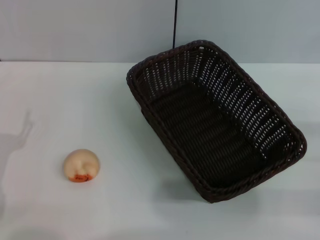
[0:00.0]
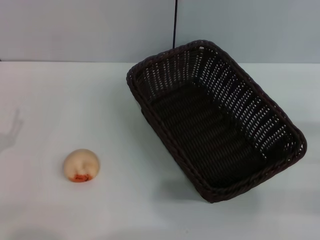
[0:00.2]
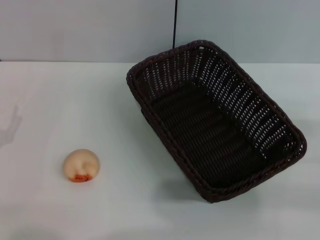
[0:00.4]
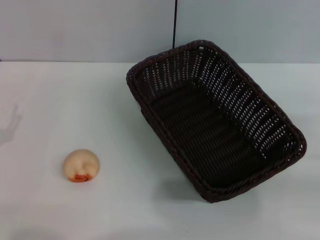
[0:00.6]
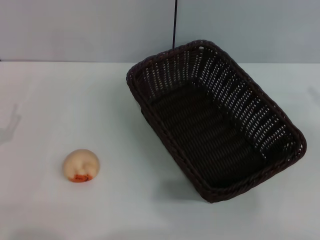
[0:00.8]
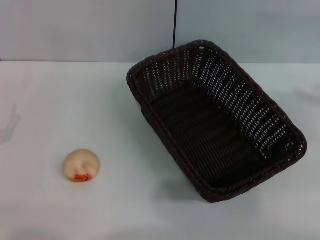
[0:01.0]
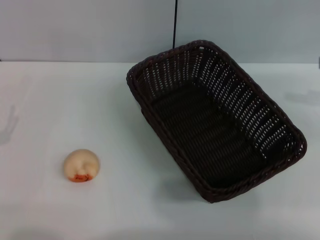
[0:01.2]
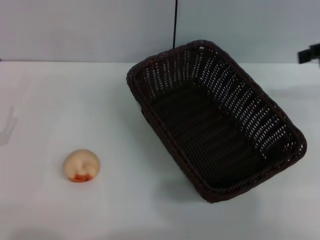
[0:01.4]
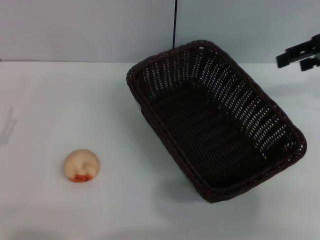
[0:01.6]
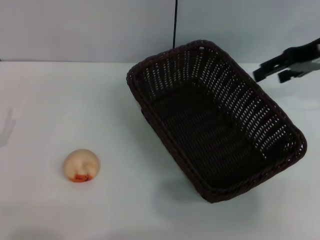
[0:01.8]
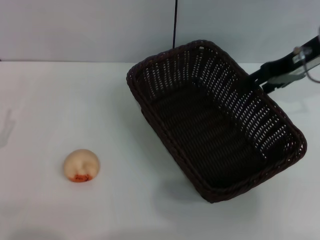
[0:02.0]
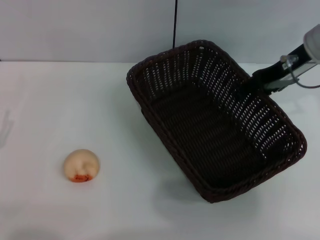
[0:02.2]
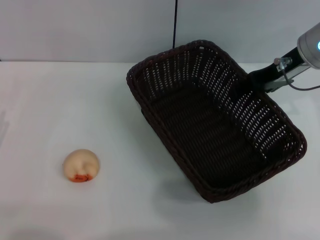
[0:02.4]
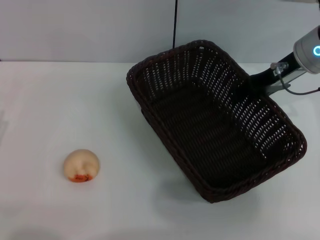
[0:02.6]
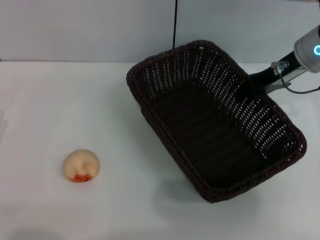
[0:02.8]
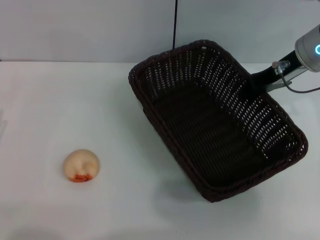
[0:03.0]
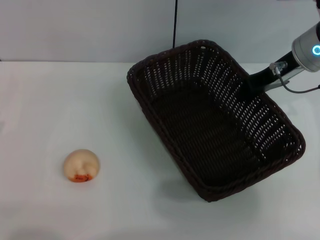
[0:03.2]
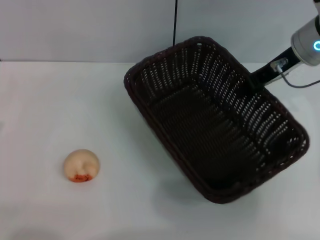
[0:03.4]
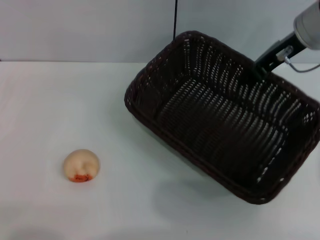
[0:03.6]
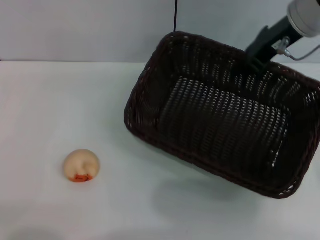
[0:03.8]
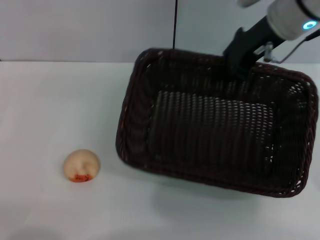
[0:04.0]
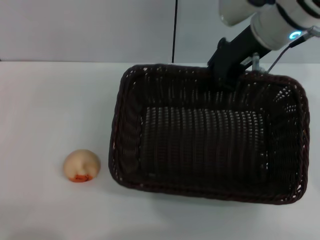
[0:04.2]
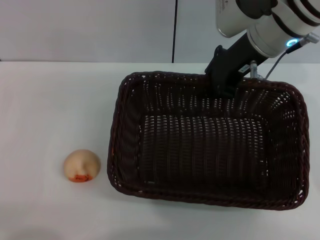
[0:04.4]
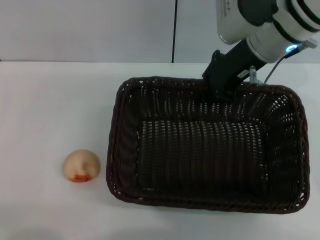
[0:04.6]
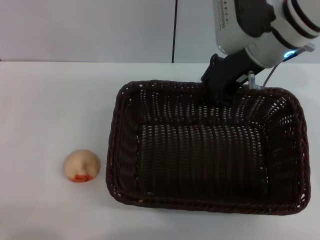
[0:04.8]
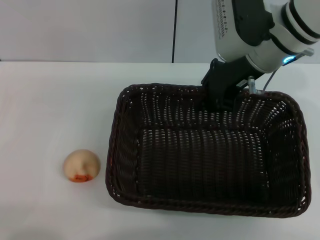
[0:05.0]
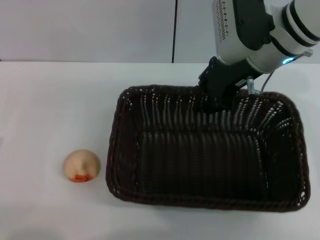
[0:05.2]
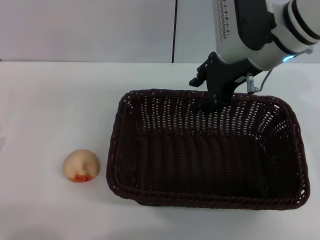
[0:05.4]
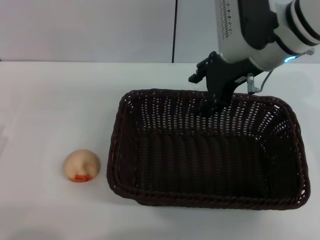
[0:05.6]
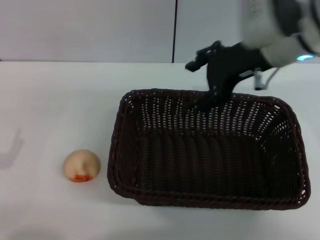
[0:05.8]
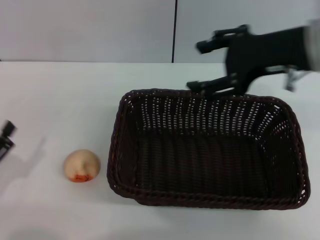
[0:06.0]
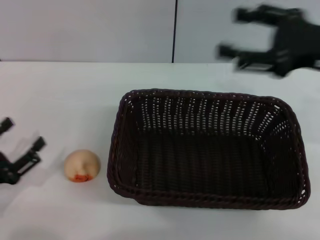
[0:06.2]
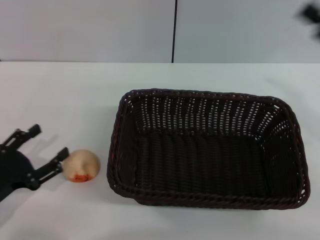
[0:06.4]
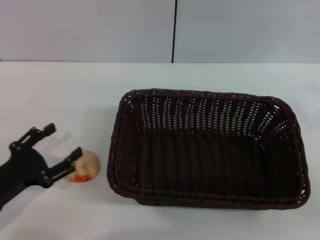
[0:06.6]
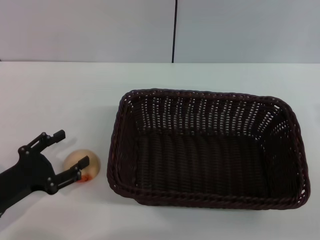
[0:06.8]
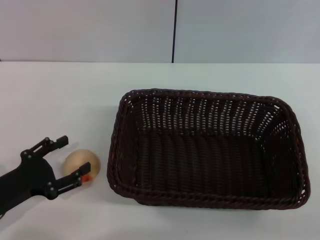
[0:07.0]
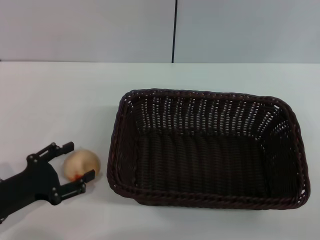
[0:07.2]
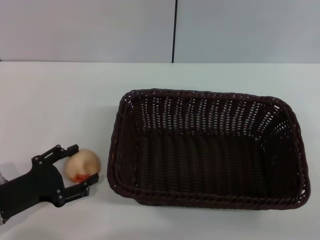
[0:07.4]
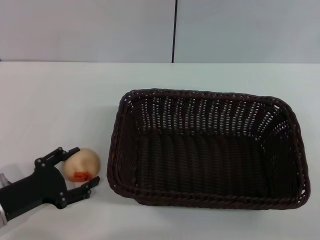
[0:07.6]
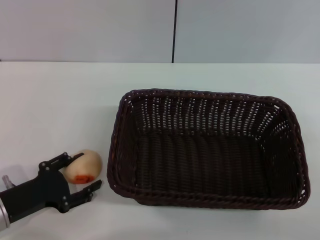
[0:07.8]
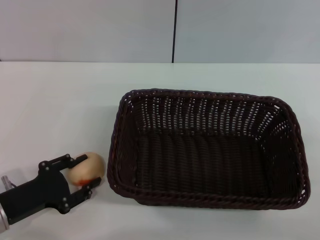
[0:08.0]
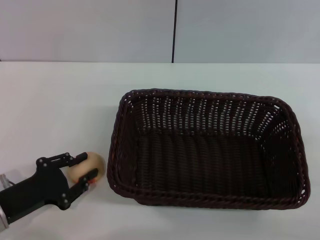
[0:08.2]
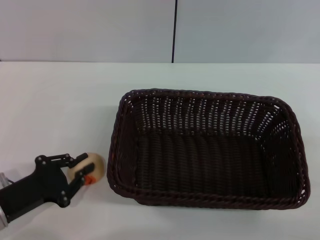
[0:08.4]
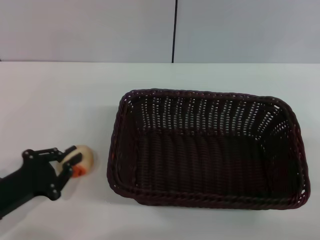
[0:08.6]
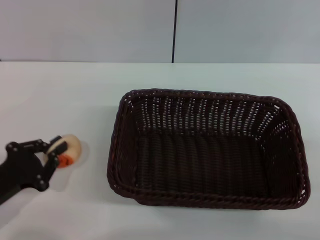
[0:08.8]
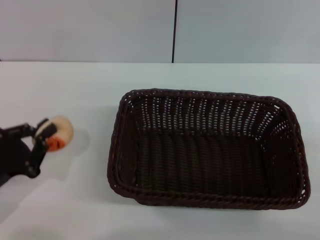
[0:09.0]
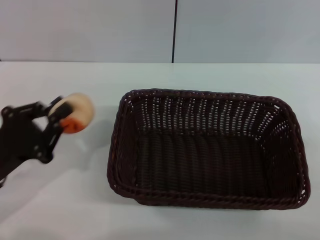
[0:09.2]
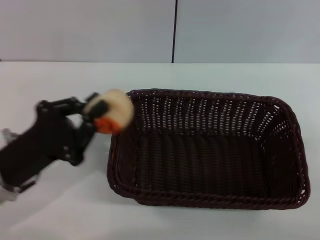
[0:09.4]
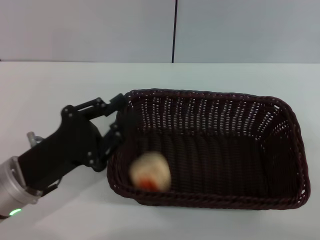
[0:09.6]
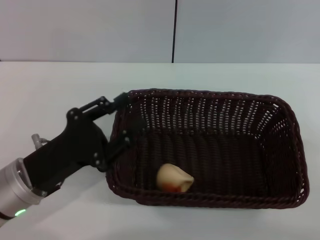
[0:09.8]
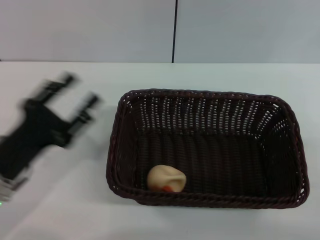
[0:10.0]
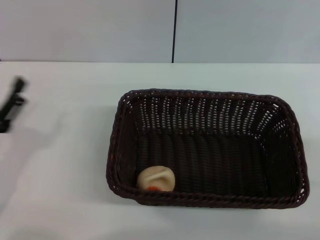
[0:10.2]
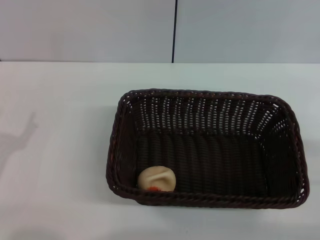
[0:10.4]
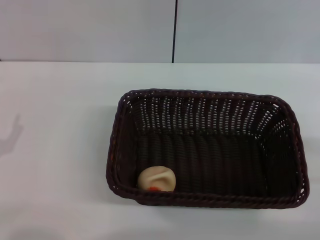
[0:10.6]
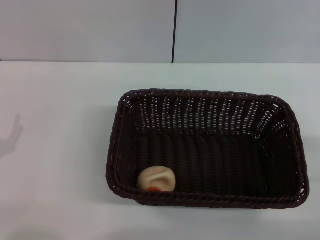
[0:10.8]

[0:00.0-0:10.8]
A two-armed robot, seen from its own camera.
Step, 0:00.0 to 0:05.6: Move the basket to the center of view with the right gripper.
Step, 0:05.8 to 0:09.0: Pick up the egg yolk pastry with the left gripper.
Step, 0:09.2 to 0:09.8: Place the egg yolk pastry into the basket with the left gripper.
0:00.0 to 0:01.6: The right gripper heads forward, upward and to the left, covering approximately 25 cm.
0:01.6 to 0:03.0: The right gripper shifts approximately 10 cm to the left and downward, and closes.
0:03.0 to 0:04.6: The right gripper heads to the left, covering about 10 cm.
0:04.6 to 0:06.2: The right gripper heads to the right and backward, covering approximately 15 cm, and opens.
0:06.2 to 0:07.8: The left gripper changes place by roughly 5 cm; the right gripper heads downward, backward and to the right, covering about 20 cm.
0:07.8 to 0:09.2: The left gripper travels upward by some 5 cm, and closes its fingers.
0:09.2 to 0:10.8: The left gripper changes place by roughly 5 cm, and opens.

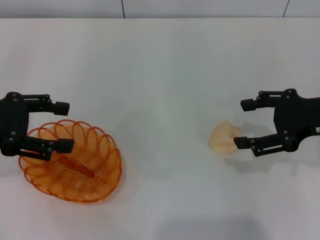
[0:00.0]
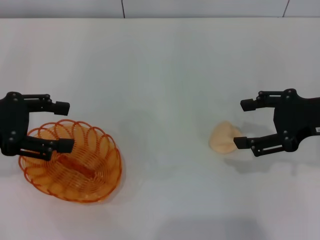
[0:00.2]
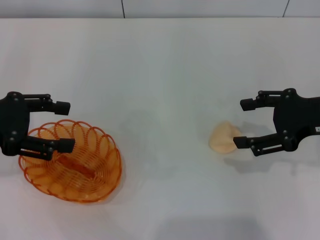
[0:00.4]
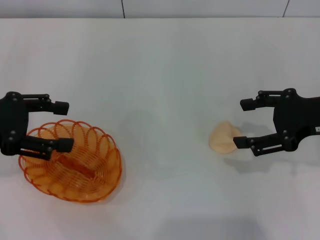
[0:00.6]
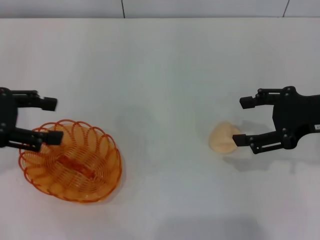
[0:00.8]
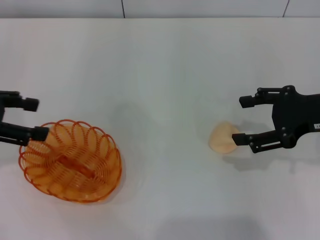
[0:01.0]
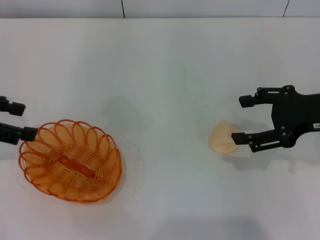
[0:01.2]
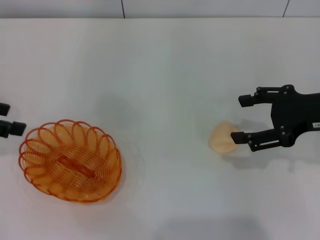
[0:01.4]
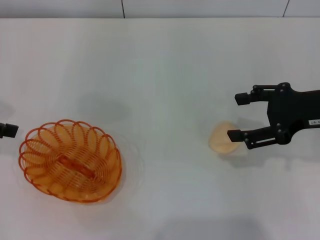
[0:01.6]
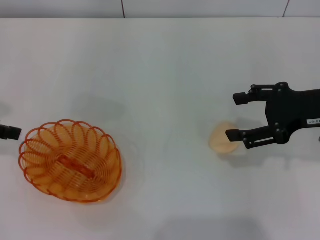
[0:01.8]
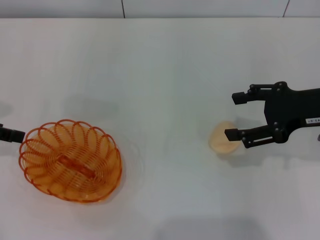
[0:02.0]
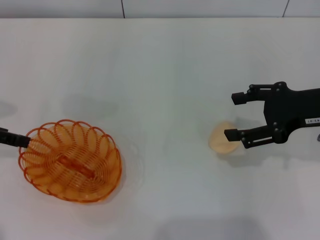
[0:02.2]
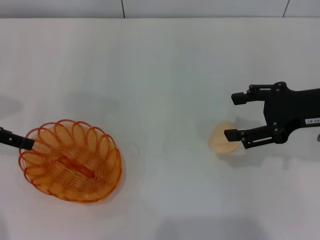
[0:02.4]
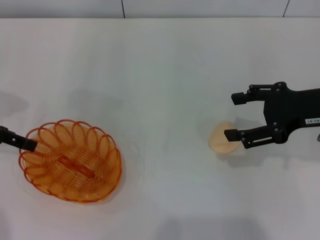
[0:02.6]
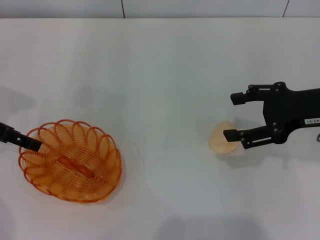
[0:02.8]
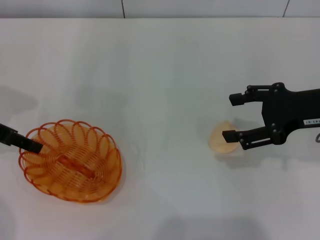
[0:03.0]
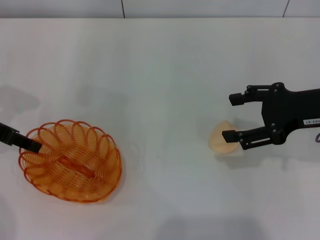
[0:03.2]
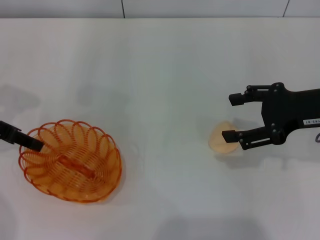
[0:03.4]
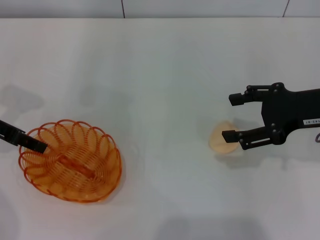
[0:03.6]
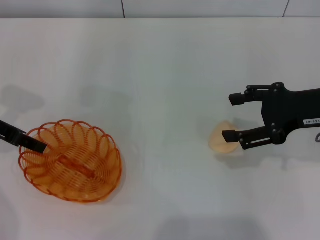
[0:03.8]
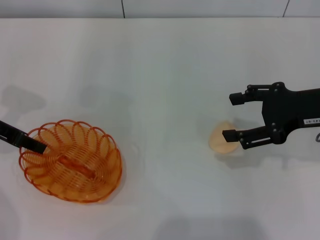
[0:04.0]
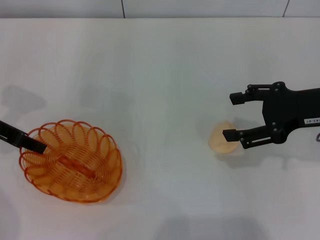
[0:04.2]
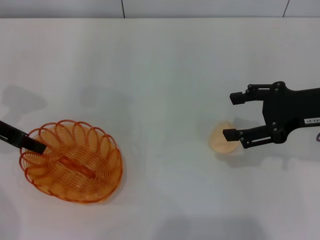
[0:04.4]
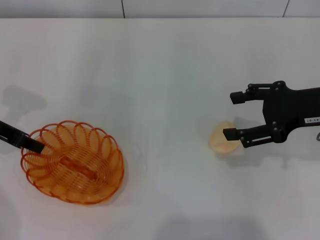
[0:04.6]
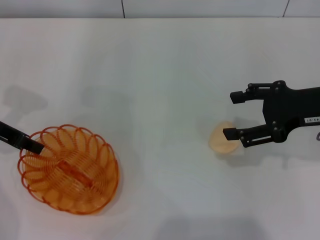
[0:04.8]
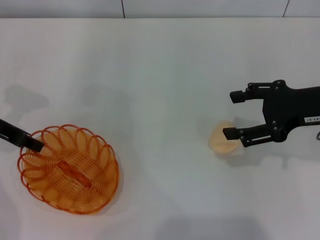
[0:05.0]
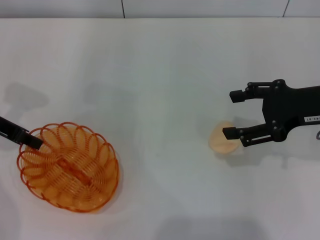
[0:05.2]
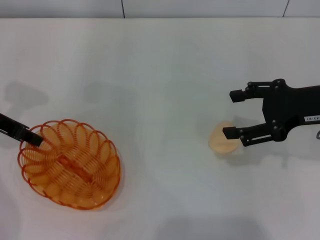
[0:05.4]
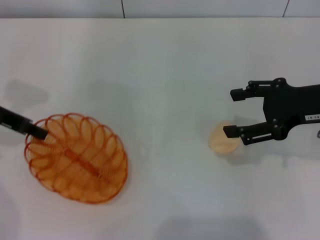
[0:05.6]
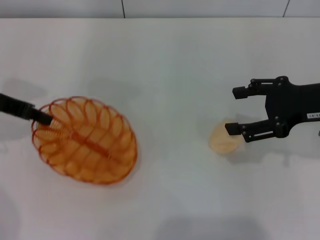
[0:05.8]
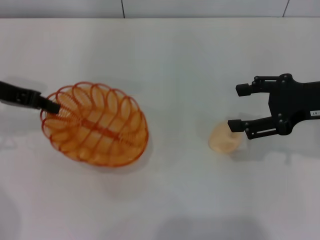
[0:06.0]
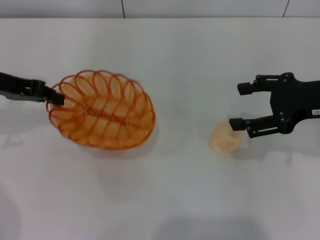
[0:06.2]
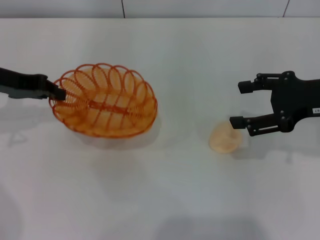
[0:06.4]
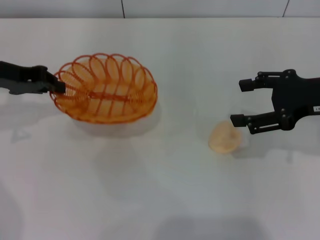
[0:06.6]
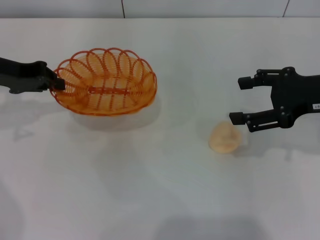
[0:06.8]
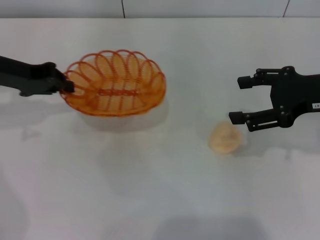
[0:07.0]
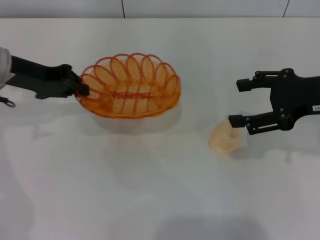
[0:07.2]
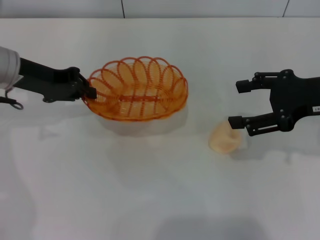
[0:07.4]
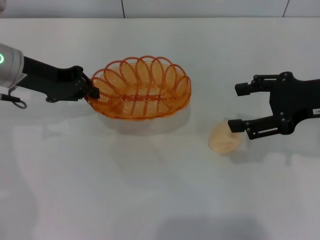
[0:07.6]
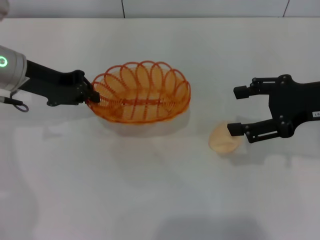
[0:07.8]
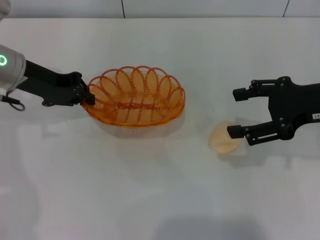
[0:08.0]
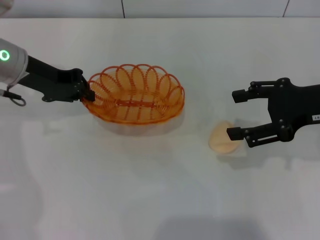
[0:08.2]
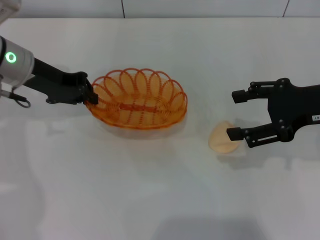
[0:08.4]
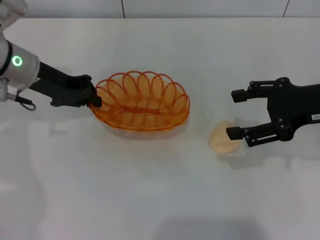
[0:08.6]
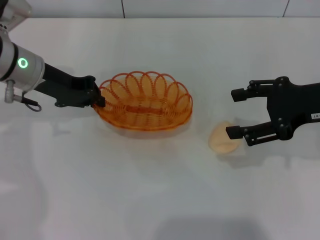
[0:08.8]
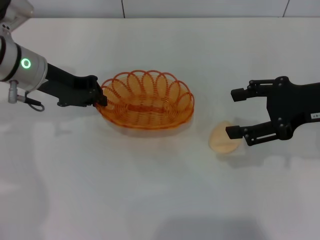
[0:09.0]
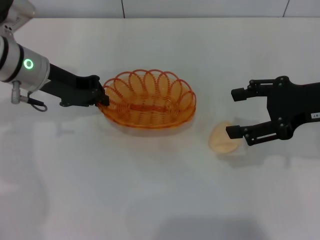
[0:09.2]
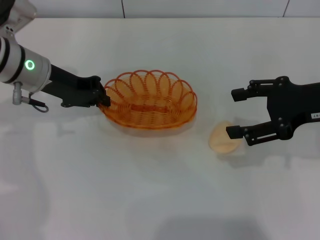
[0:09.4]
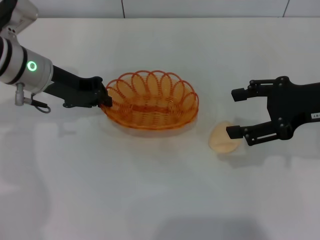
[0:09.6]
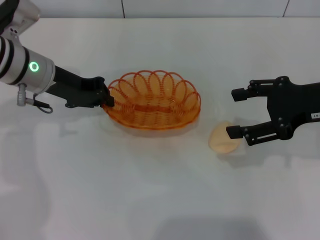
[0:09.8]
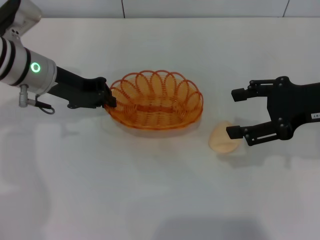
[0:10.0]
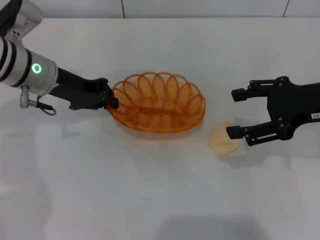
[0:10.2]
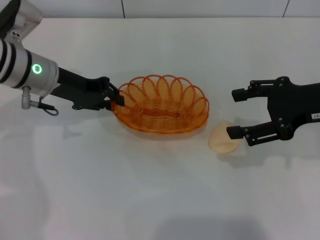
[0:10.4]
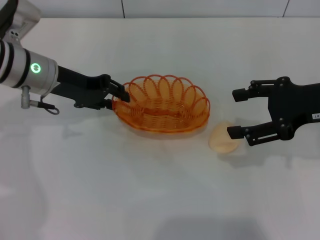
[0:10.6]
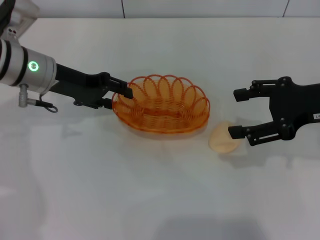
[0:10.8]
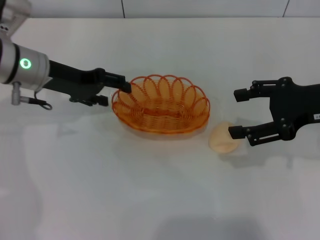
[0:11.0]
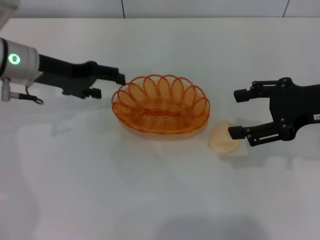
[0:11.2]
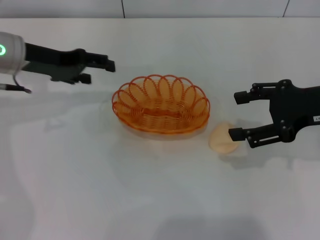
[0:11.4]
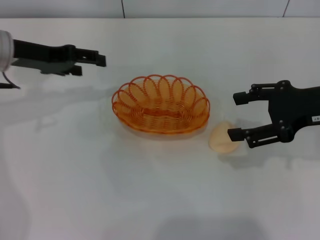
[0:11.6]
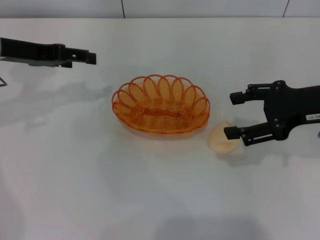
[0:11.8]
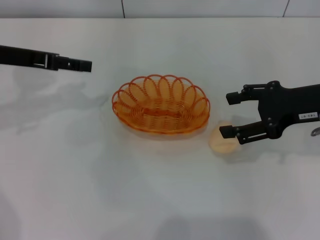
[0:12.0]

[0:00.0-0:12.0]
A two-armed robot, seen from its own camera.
Step, 0:00.0 to 0:06.2: Pick up the basket with the left gripper.
Step, 0:06.4 to 0:11.4: Place the basket in the center of view with the left gripper.
0:00.0 to 0:01.6: The left gripper shifts by about 5 cm.
0:01.6 to 0:03.0: The left gripper changes place by about 5 cm.
0:04.4 to 0:06.0: The grippers move only a little.
0:06.0 to 0:07.6: The left gripper is displaced to the right by some 5 cm.
0:07.6 to 0:10.4: There are only small adjustments of the grippers.
0:10.4 to 0:12.0: The left gripper shifts about 10 cm to the left and upward, and opens.
